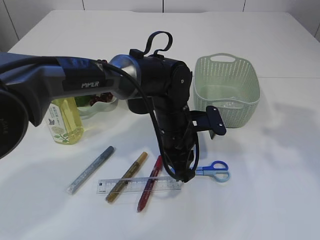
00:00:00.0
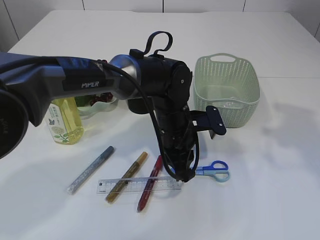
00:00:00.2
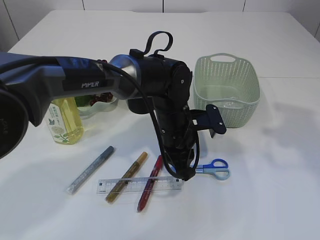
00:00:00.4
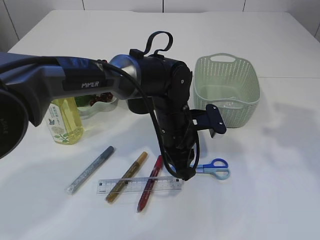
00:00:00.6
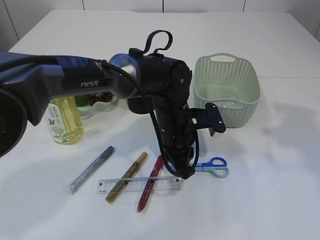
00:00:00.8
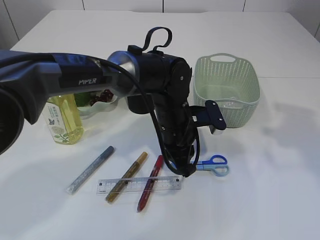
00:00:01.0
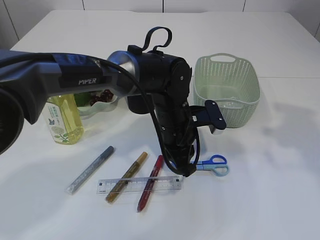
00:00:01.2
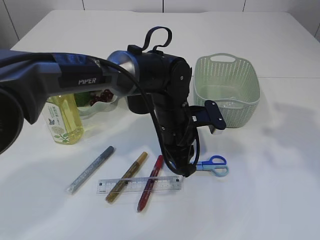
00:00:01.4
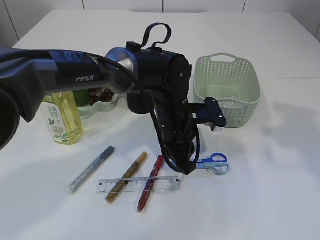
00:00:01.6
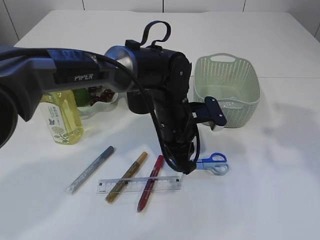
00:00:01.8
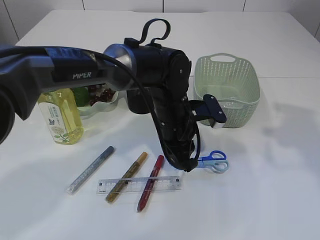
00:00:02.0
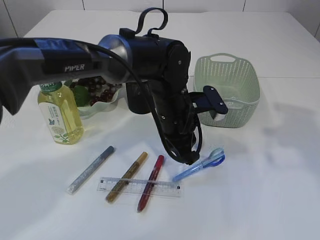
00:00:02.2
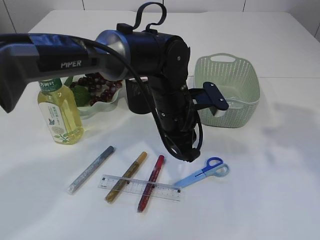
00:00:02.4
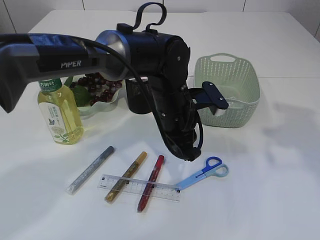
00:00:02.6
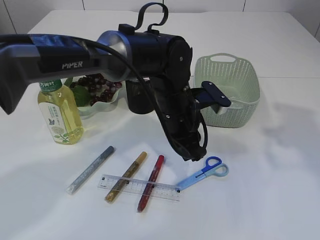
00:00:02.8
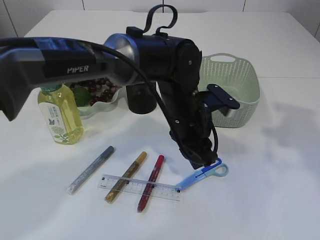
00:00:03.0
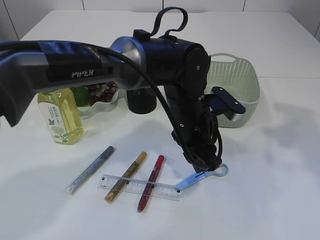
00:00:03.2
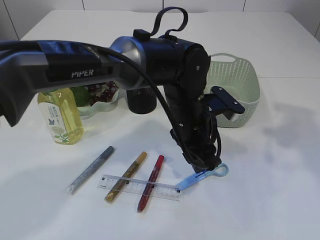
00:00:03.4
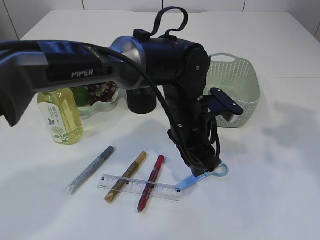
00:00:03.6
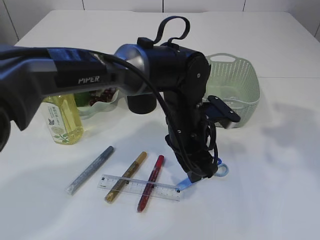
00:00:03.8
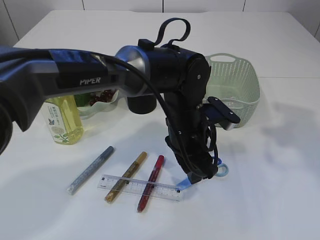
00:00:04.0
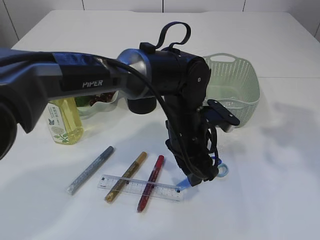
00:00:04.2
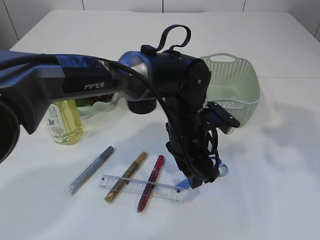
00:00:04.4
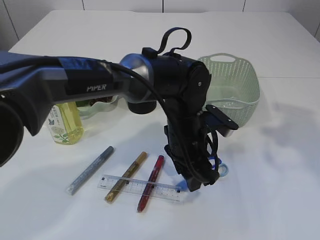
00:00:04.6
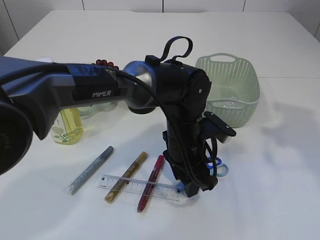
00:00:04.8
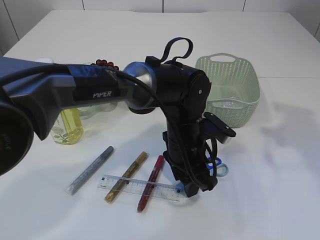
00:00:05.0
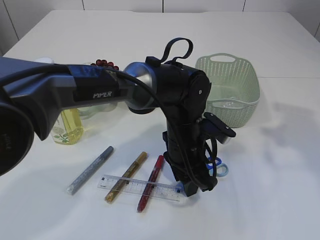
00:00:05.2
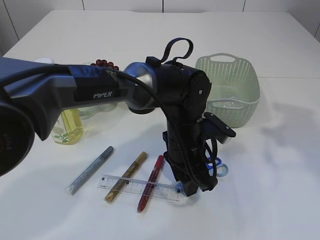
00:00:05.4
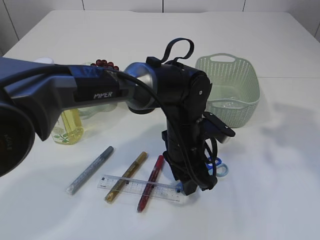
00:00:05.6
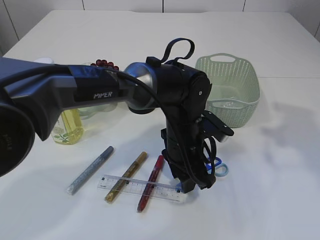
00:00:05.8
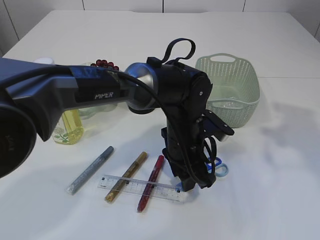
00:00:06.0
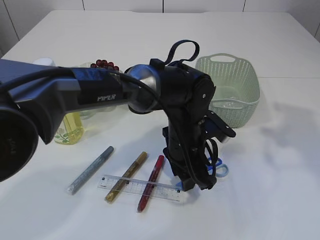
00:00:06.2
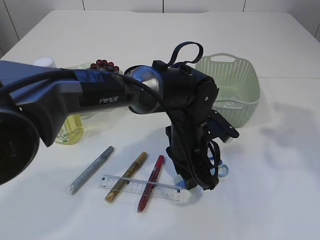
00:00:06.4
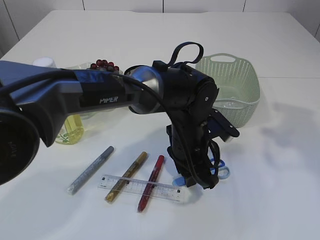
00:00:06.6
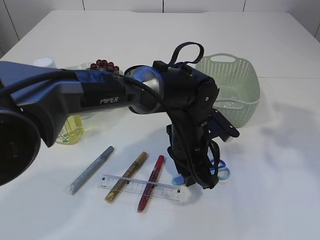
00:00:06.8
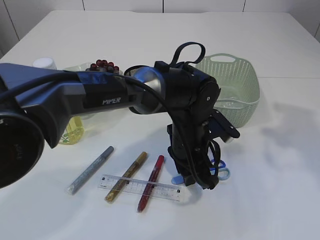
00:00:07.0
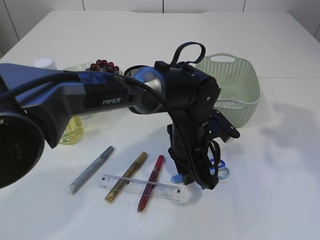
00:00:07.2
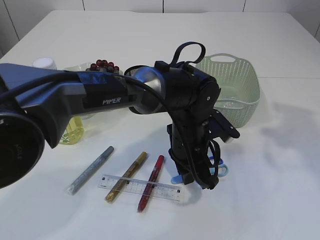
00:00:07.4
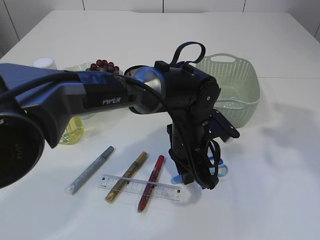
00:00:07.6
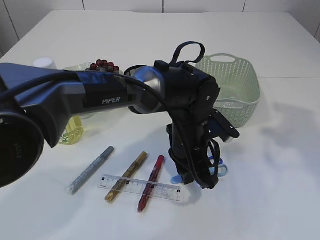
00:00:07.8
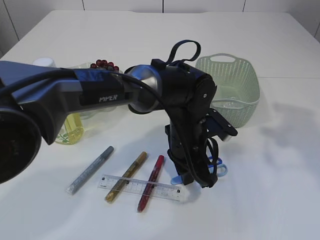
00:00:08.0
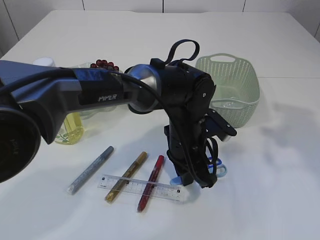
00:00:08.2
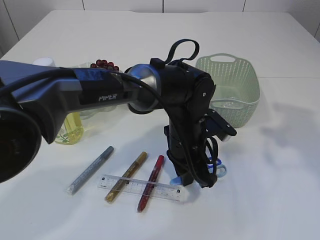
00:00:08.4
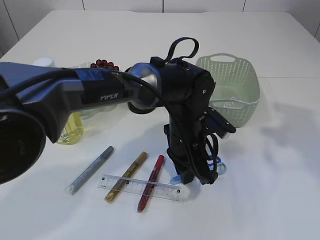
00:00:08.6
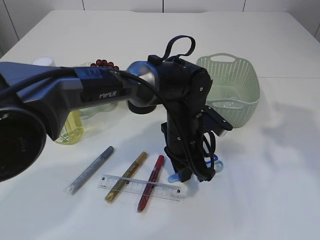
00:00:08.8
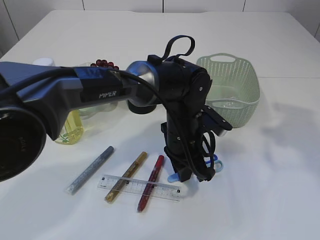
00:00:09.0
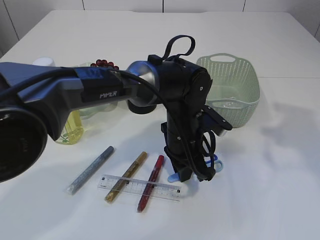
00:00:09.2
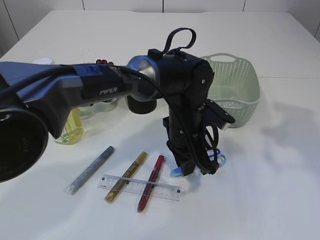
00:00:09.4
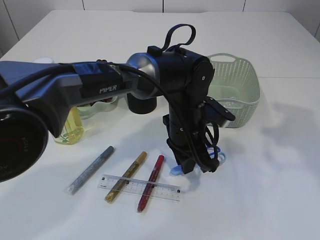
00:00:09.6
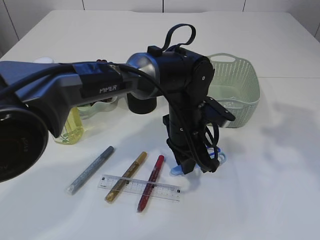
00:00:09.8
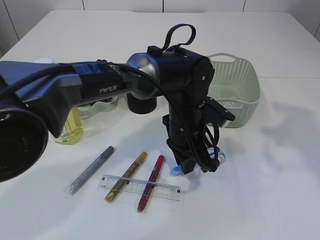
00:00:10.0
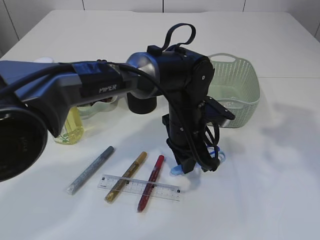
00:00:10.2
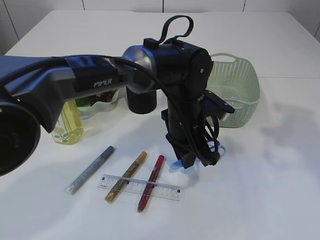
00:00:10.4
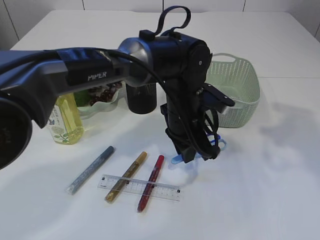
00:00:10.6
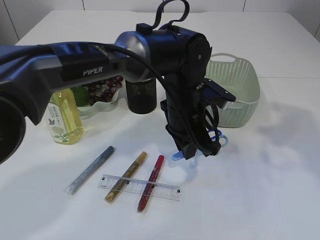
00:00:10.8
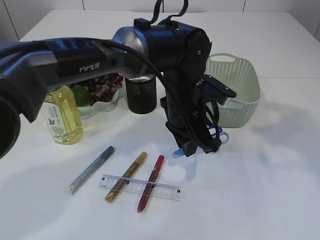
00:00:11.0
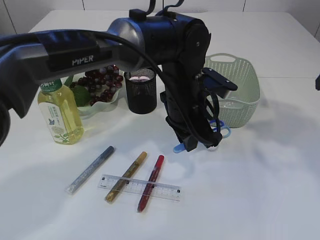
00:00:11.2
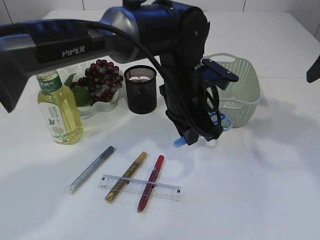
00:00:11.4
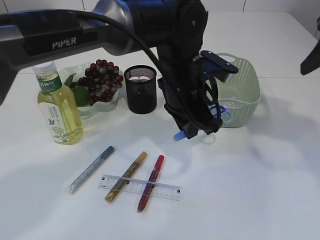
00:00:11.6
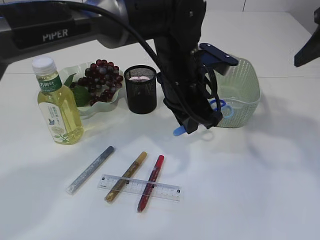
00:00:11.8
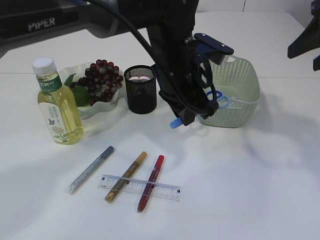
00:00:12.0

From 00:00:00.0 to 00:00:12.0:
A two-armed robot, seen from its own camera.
Step, from 00:00:00.0 to 00:00:10.8: pick up the blue scissors.
From 00:00:00.0 to 00:00:01.6: Both grippers stay about where they are.
From 00:00:01.6 to 00:00:04.4: The grippers move only a little.
From 00:00:04.4 to 00:00:06.0: The grippers stay close to where they were, moving slightly.
From 00:00:06.0 to 00:00:07.6: The left gripper closes.
From 00:00:07.6 to 00:00:10.4: There are only small adjustments of the grippers.
From 00:00:10.4 to 00:00:12.0: The left gripper is displaced upward by about 10 cm.

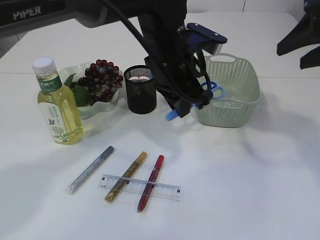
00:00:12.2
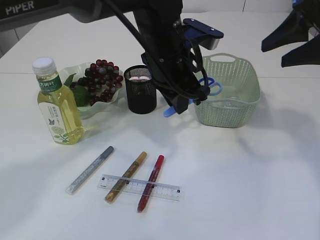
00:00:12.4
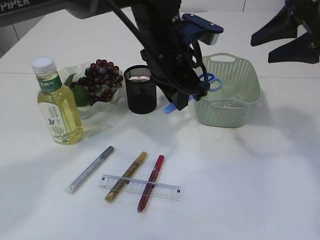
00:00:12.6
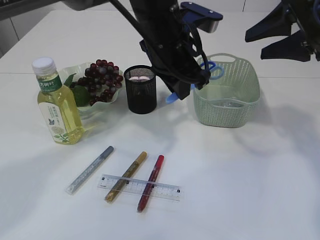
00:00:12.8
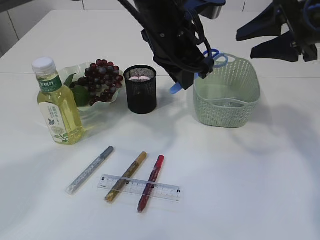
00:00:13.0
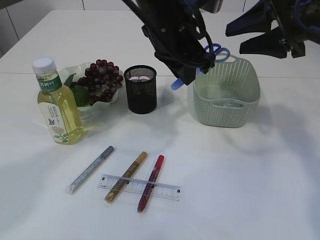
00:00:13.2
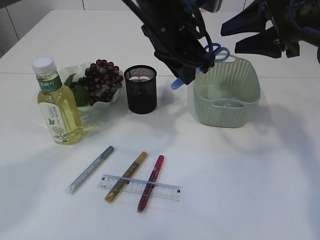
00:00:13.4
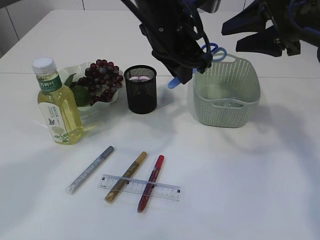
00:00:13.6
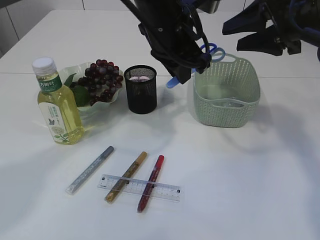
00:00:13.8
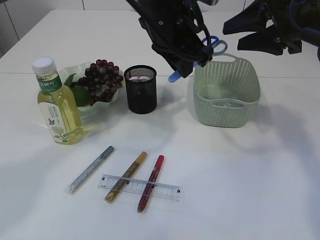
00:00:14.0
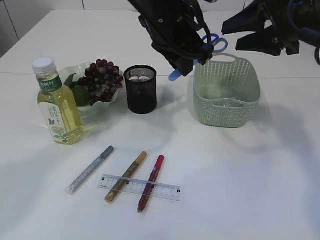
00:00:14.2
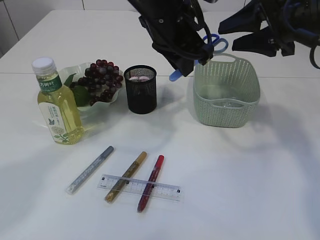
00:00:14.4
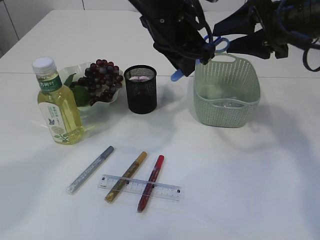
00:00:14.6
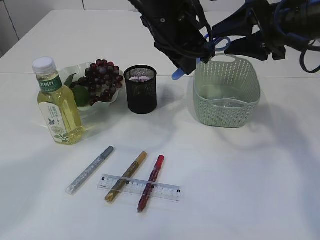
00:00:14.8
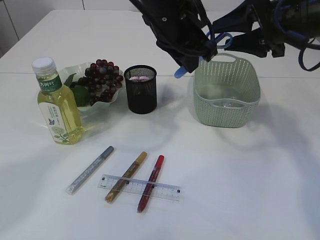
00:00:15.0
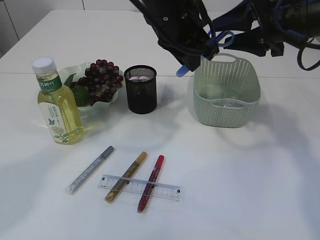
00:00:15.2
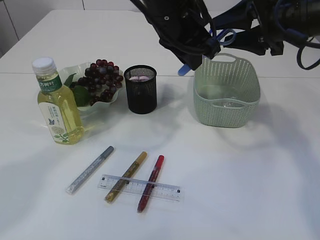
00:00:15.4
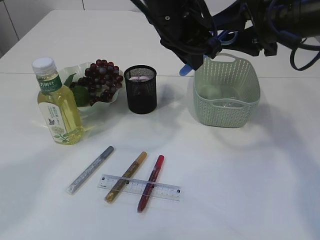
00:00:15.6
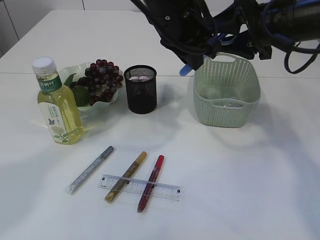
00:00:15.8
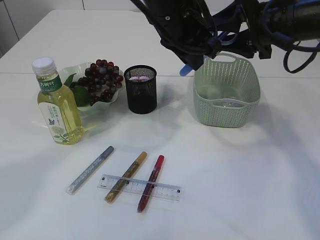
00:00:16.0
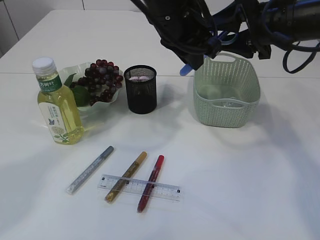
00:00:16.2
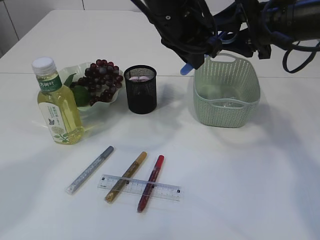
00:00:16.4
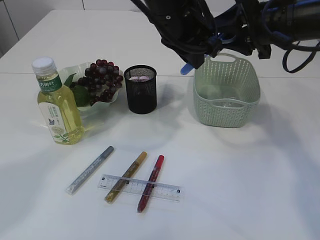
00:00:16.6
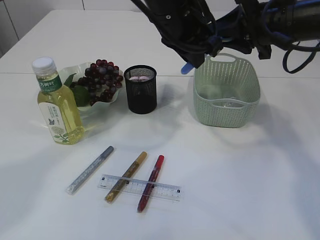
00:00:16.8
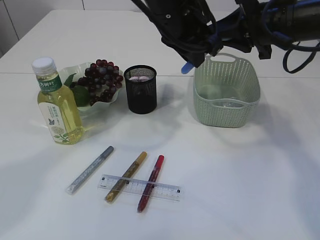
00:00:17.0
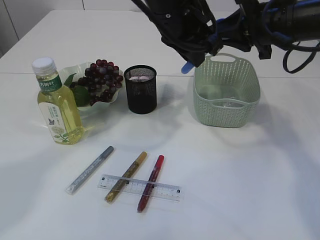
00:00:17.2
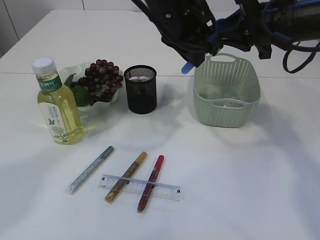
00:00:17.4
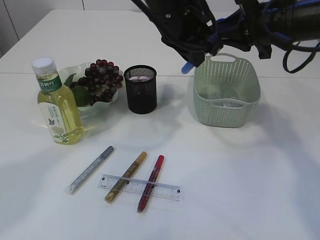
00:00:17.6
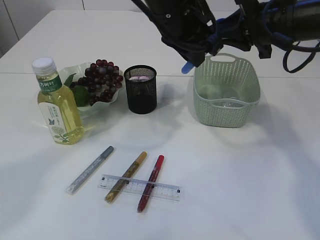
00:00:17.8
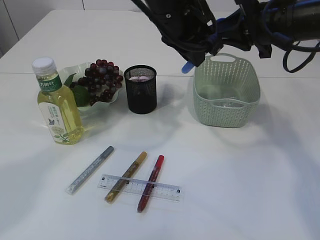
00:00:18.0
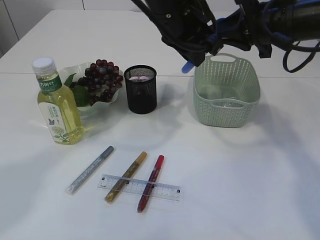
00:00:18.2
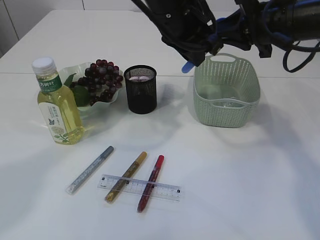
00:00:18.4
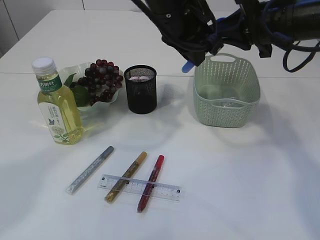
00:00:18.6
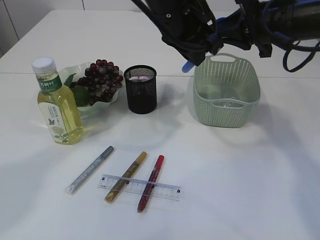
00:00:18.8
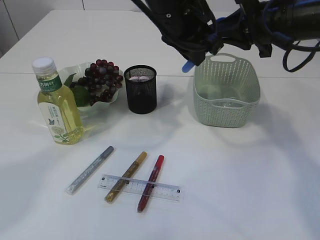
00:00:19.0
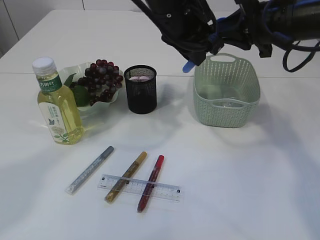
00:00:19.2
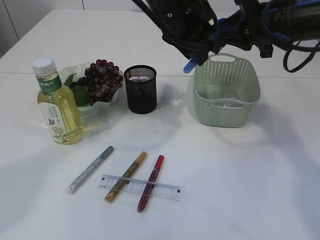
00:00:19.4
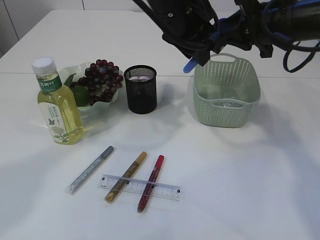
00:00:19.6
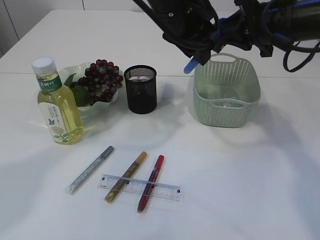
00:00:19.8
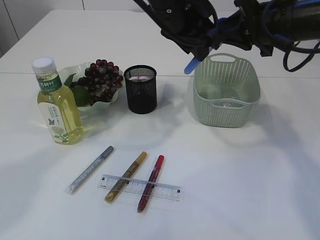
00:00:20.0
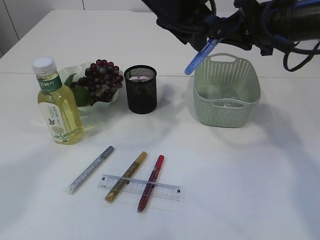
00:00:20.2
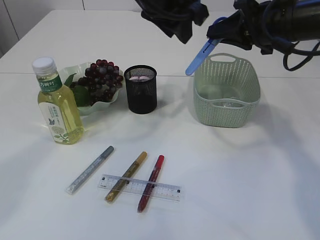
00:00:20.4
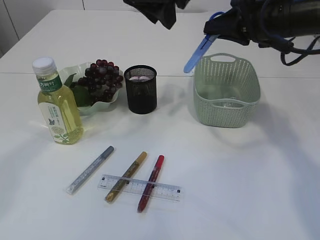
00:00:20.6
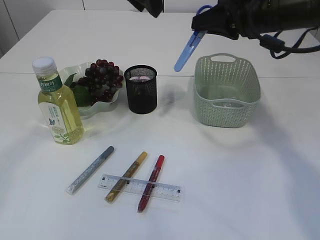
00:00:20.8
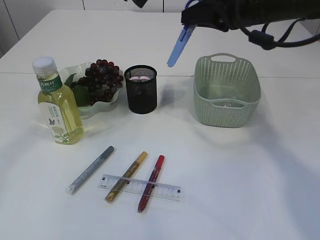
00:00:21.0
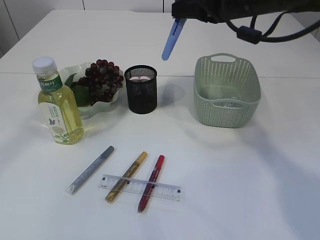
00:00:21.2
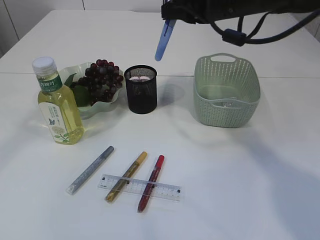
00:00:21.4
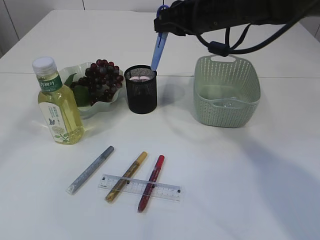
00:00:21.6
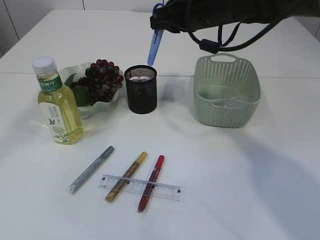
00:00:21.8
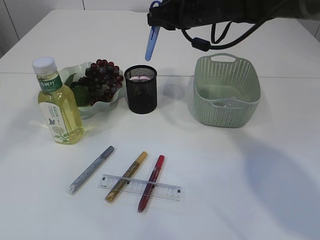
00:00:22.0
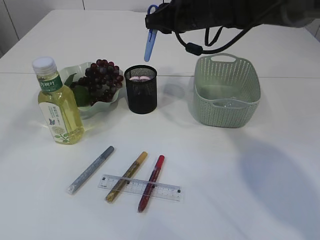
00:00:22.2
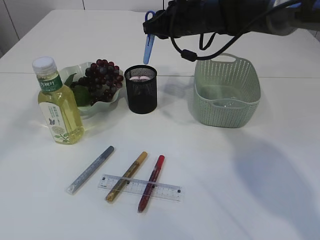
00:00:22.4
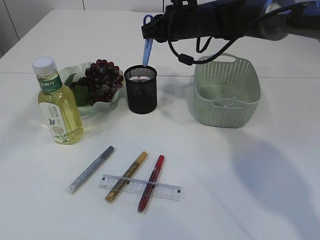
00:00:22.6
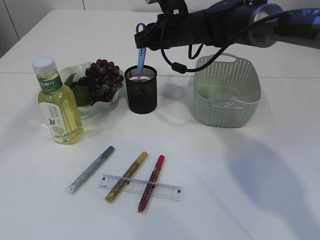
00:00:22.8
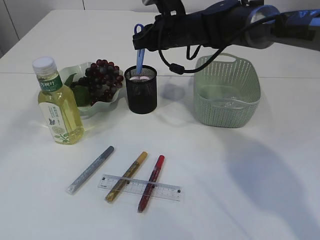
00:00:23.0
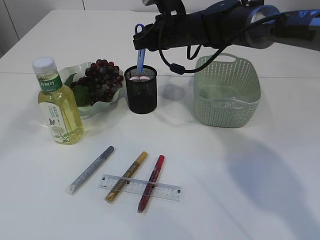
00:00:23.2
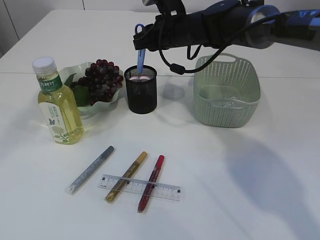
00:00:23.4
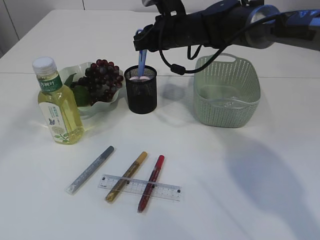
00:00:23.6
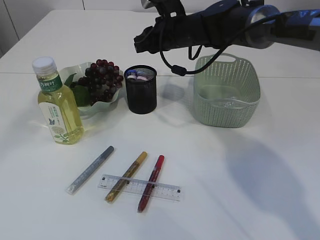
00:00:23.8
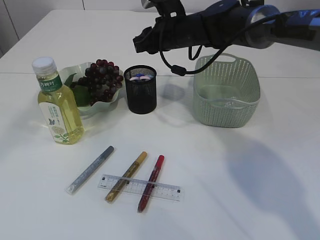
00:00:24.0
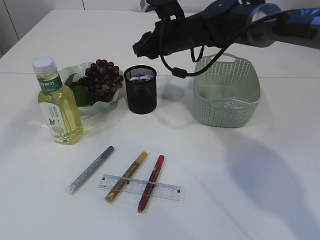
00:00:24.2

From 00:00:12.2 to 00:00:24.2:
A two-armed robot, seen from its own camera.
Step, from 00:00:12.2 to 00:00:20.8: Hand over the blue scissors.
From 00:00:12.2 to 00:00:13.8: The right gripper goes some 5 cm forward.
From 00:00:13.8 to 00:00:16.6: There are only small adjustments of the grippers.
From 00:00:16.6 to 00:00:18.2: The right gripper closes.
From 00:00:18.2 to 00:00:19.8: The two grippers keep their place.
From 00:00:19.8 to 00:00:21.2: The left gripper is displaced upward and to the left by some 15 cm. The right gripper shifts about 5 cm to the left.
From 00:00:21.2 to 00:00:22.6: The right gripper heads forward, downward and to the left, covering approximately 15 cm.
From 00:00:22.6 to 00:00:24.2: There are only small adjustments of the grippers.
